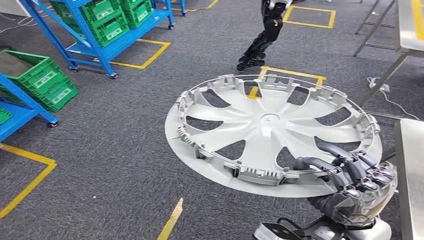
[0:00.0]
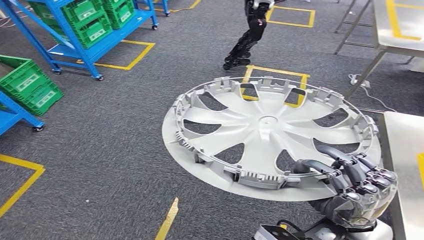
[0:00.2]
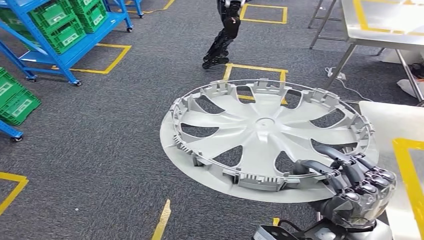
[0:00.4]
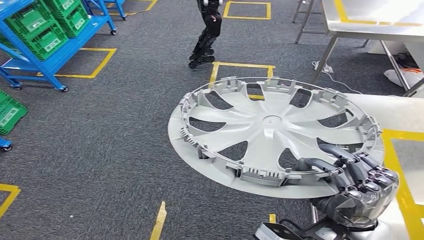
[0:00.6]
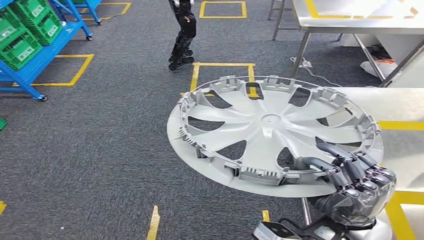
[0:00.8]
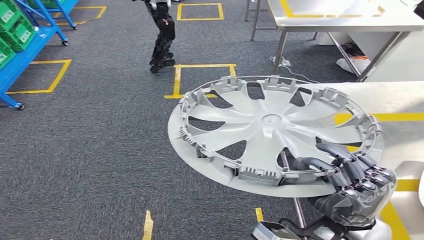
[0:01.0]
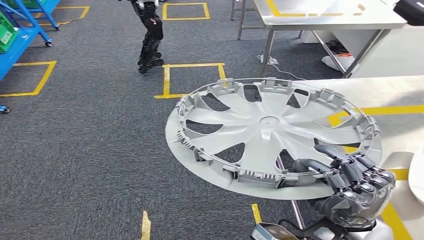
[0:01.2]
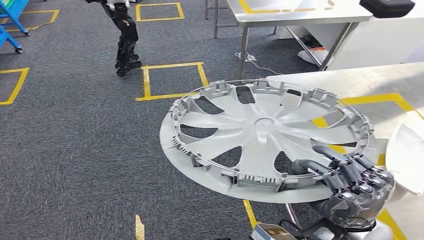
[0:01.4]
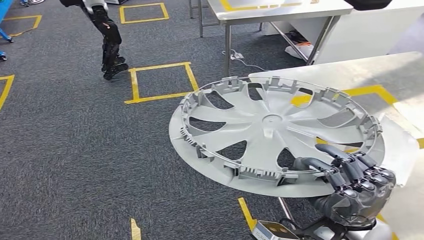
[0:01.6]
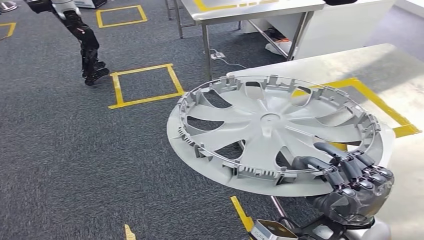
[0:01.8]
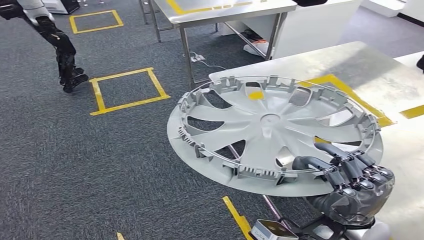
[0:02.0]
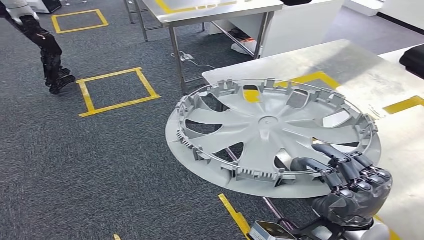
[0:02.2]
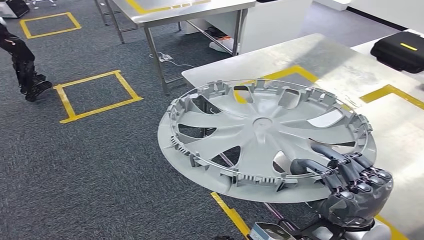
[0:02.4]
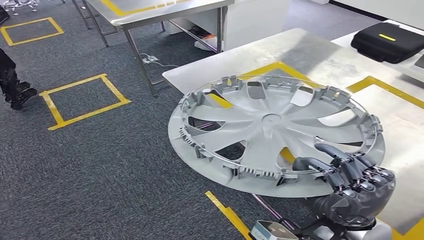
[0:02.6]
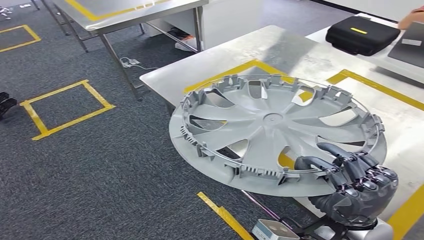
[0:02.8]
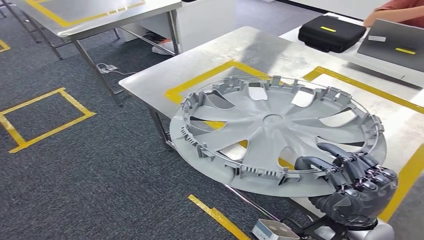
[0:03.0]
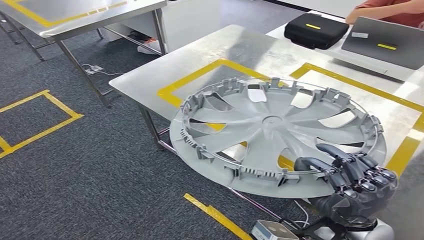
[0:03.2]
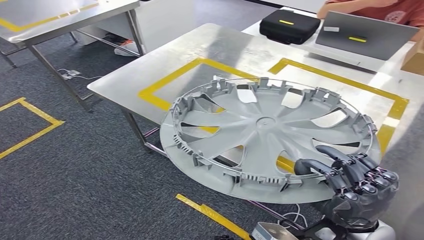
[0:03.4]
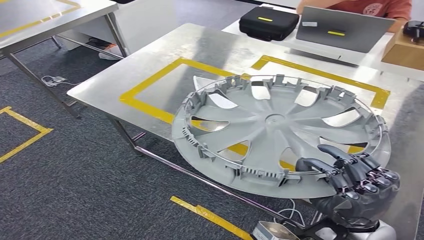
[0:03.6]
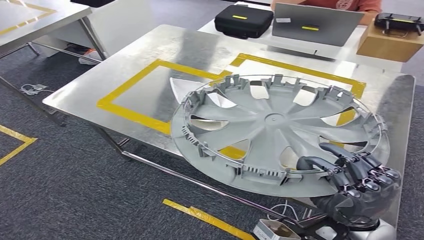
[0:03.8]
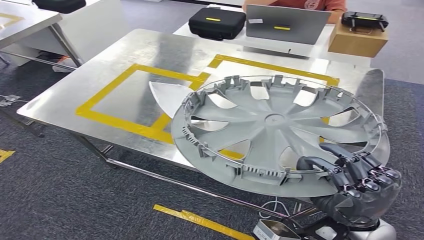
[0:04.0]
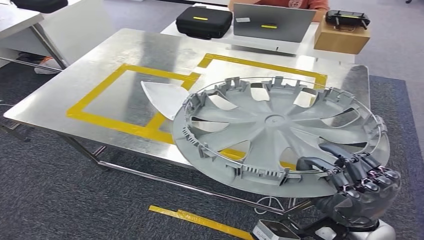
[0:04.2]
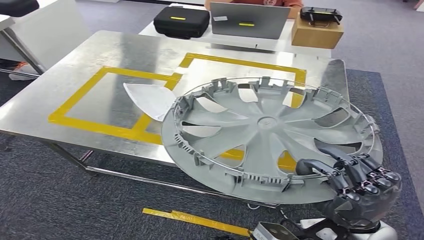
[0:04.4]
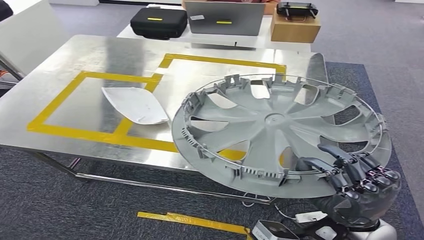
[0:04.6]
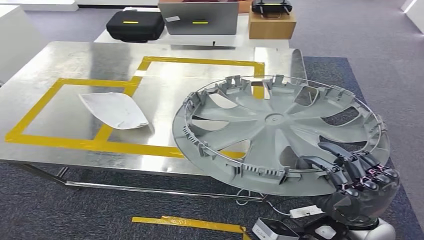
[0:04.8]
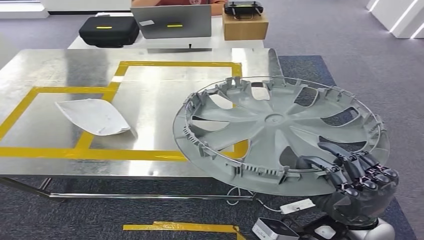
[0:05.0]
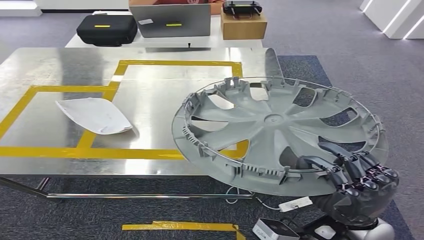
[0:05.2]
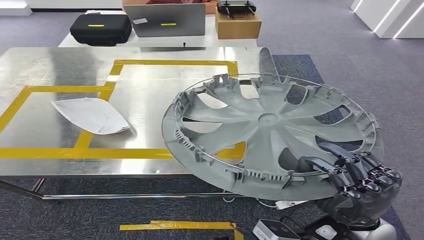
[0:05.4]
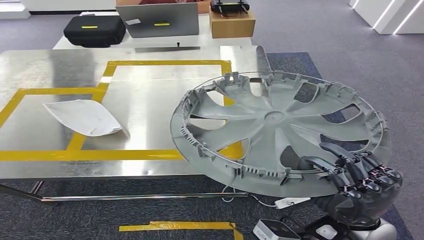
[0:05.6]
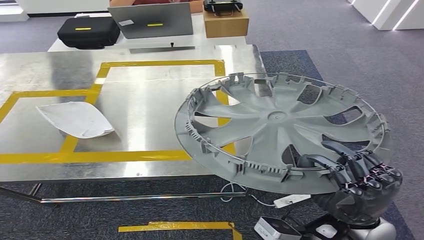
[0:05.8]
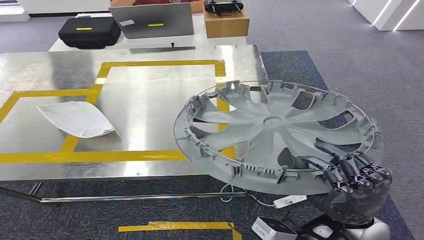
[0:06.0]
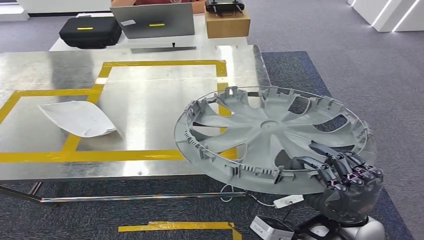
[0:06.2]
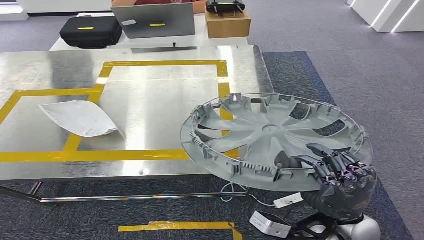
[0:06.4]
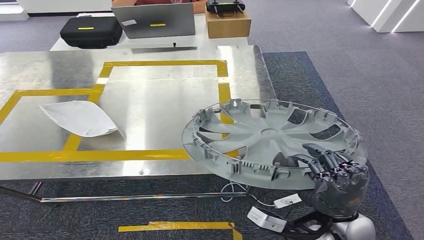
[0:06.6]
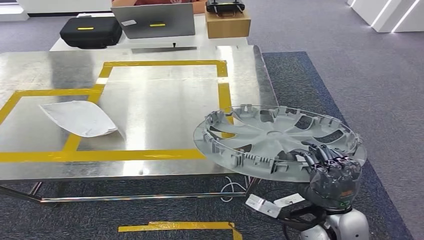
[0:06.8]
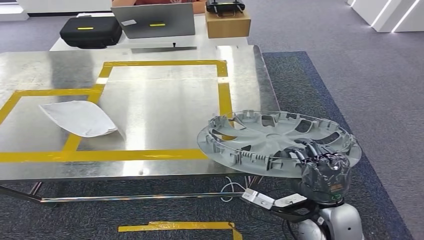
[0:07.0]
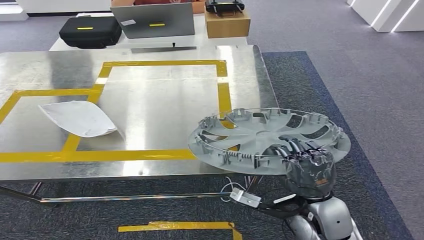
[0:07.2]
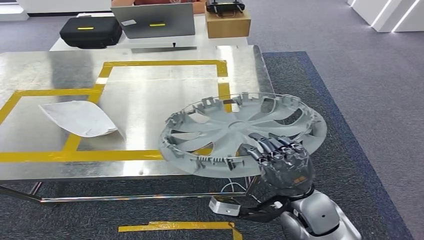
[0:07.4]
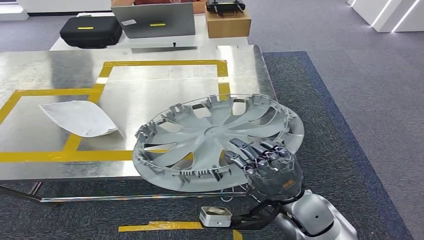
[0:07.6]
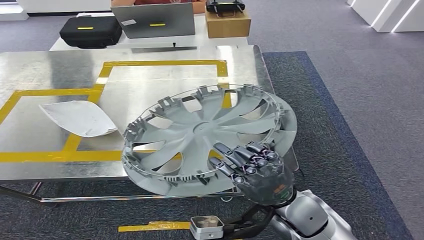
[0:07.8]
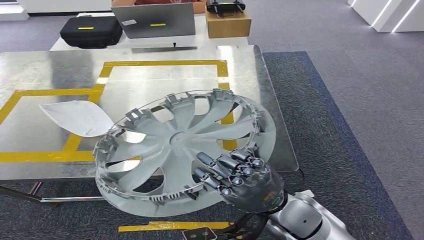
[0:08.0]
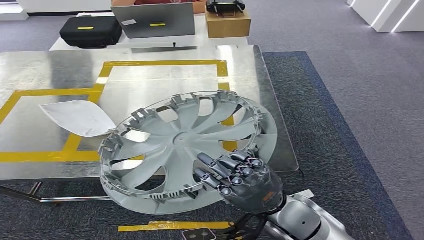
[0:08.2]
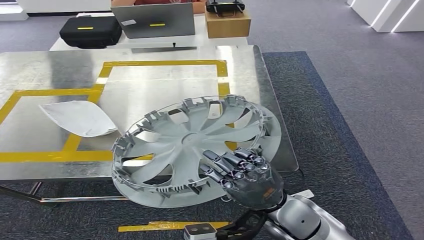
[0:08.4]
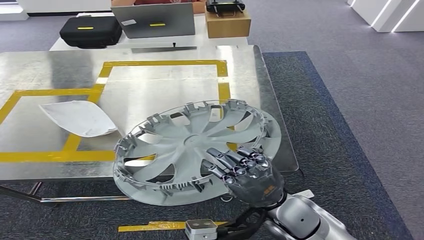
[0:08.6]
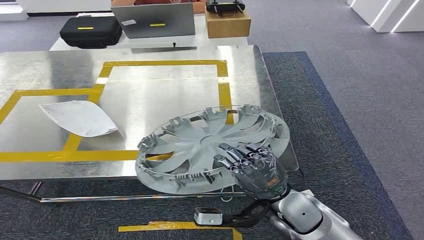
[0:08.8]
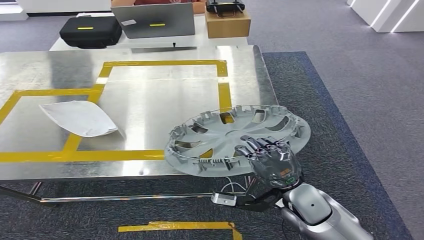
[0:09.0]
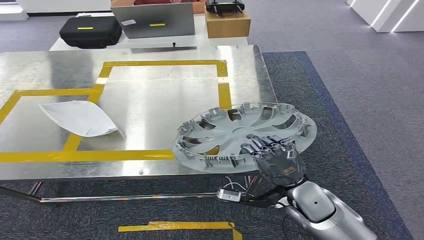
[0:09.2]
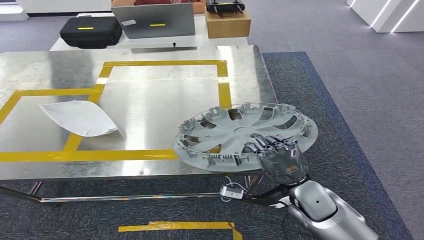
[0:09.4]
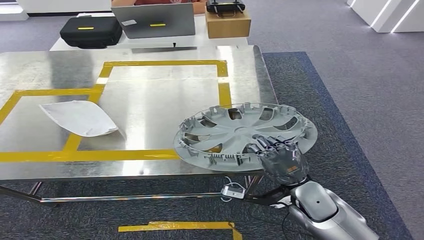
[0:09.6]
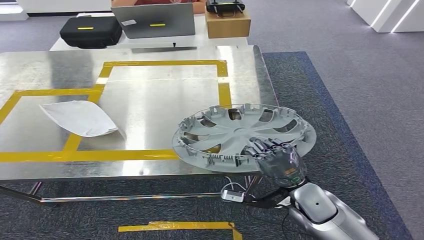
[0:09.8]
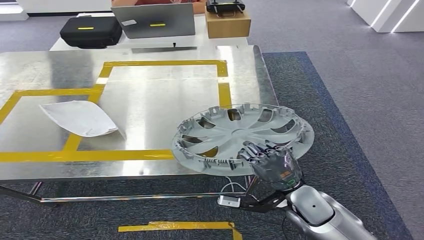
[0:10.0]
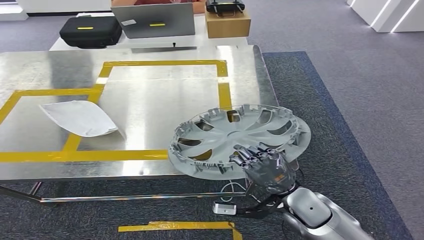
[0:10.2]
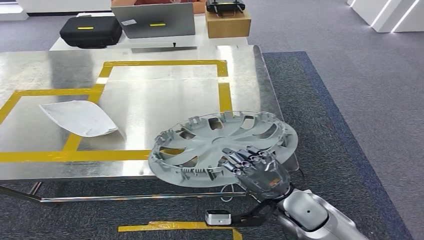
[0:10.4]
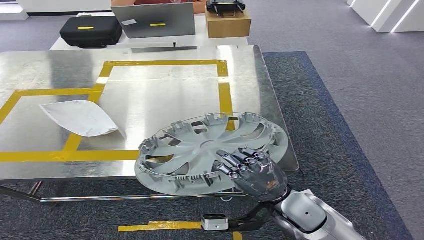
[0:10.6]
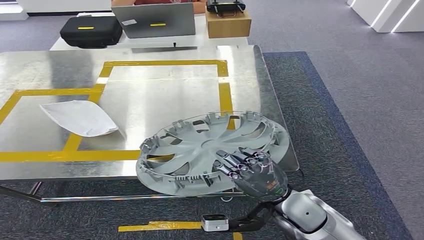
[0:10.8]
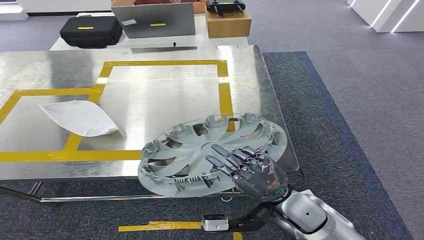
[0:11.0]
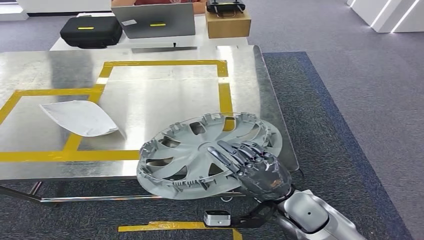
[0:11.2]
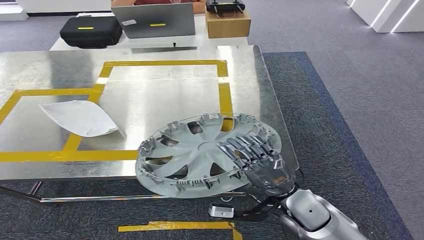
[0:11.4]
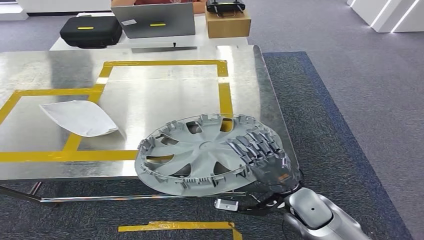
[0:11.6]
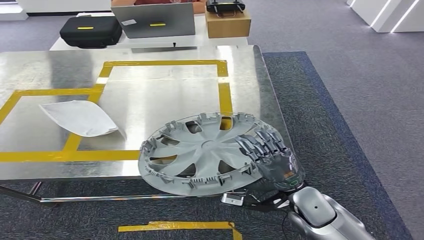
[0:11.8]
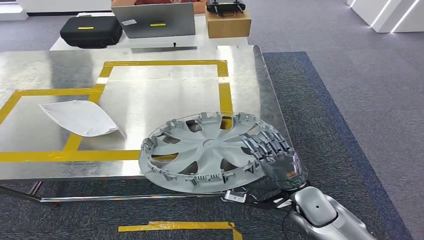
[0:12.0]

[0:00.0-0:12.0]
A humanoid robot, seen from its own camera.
Step, 0:00.0 to 0:02.2: Move the small parts to the workbench.
0:07.6 to 0:09.0: The right hand changes place by roughly 5 cm.
0:09.0 to 0:10.4: There are only small adjustments of the hands.
0:10.4 to 0:12.0: The right hand changes place by approximately 5 cm.

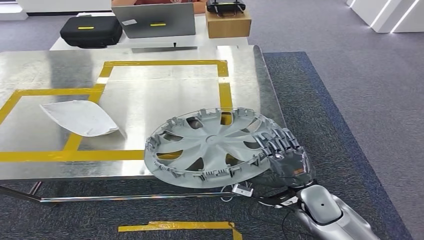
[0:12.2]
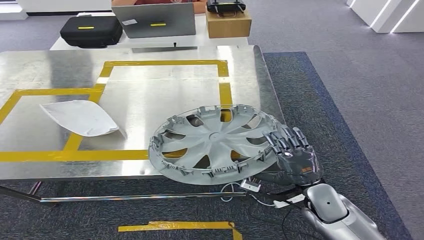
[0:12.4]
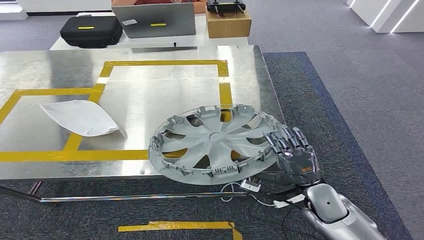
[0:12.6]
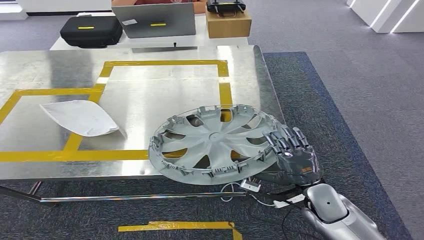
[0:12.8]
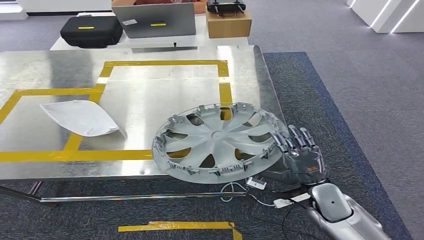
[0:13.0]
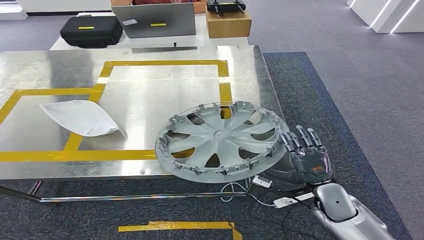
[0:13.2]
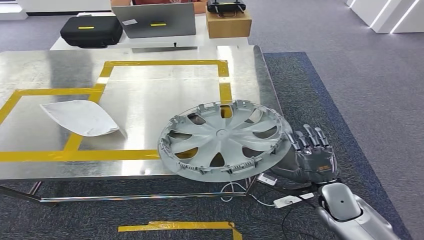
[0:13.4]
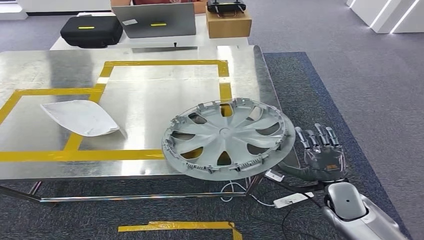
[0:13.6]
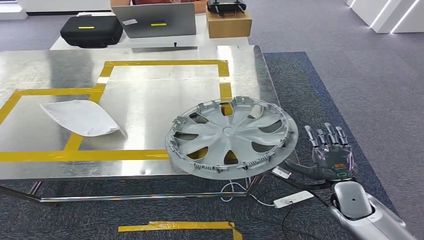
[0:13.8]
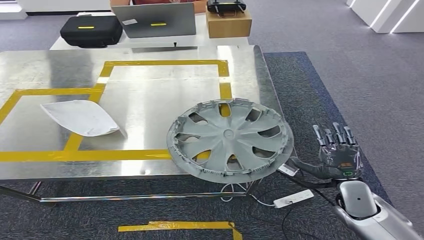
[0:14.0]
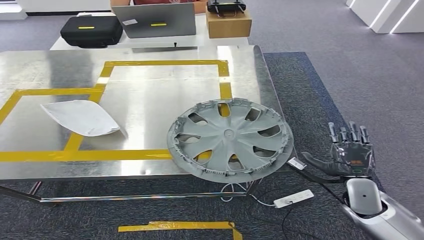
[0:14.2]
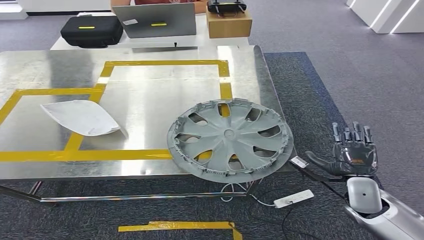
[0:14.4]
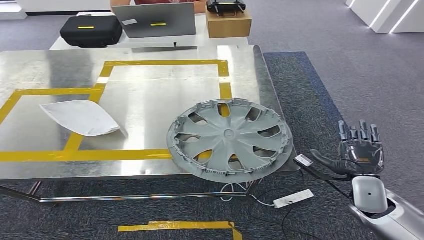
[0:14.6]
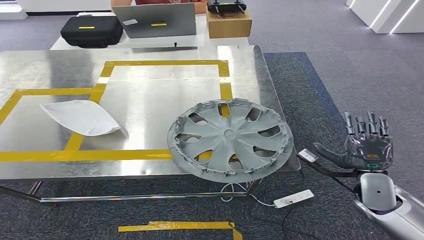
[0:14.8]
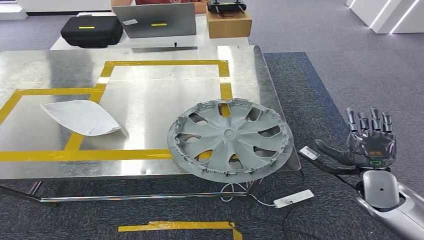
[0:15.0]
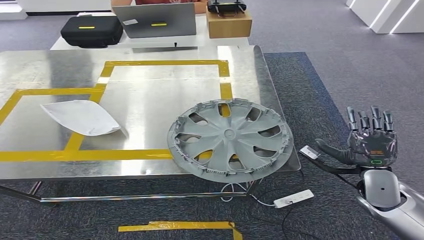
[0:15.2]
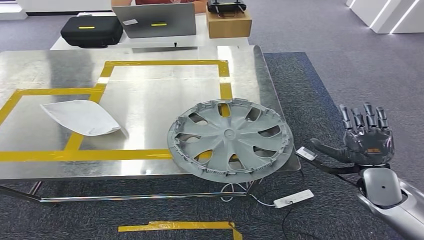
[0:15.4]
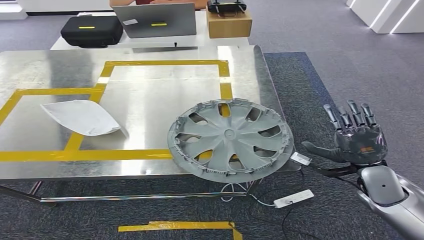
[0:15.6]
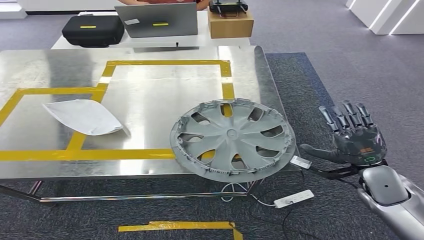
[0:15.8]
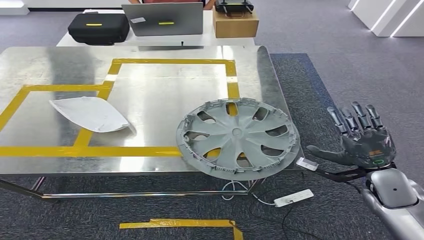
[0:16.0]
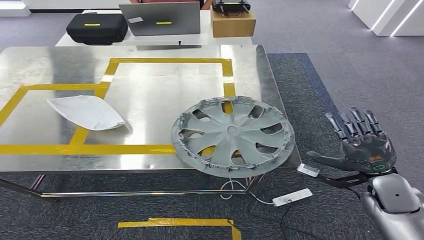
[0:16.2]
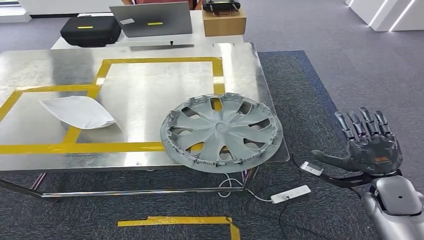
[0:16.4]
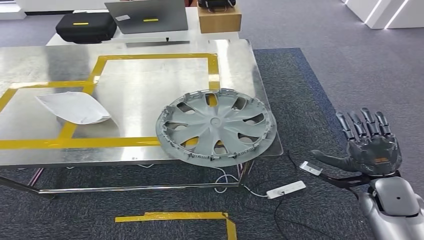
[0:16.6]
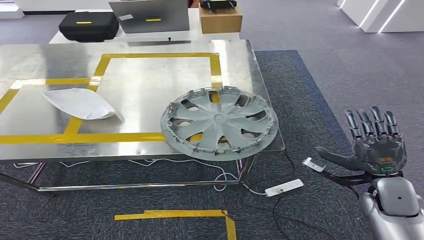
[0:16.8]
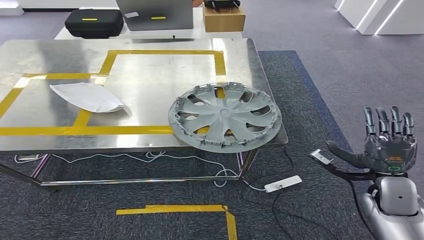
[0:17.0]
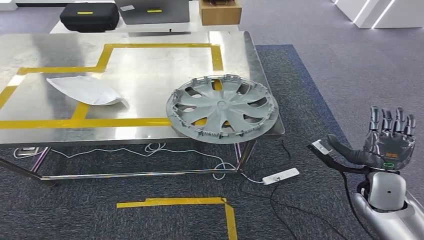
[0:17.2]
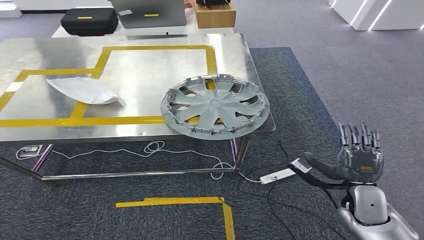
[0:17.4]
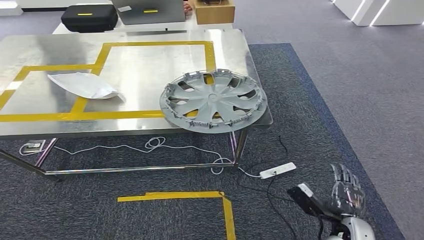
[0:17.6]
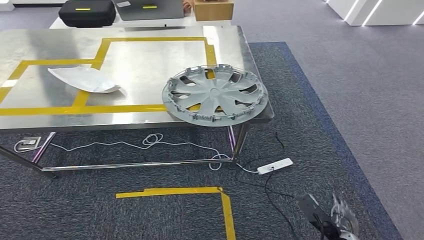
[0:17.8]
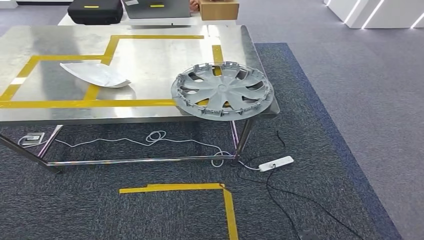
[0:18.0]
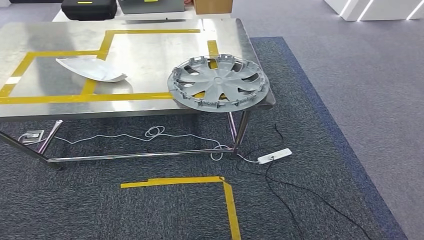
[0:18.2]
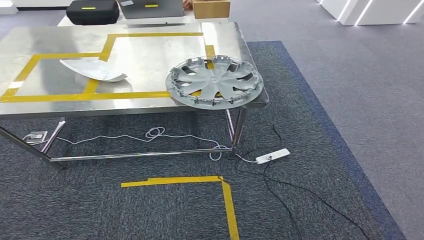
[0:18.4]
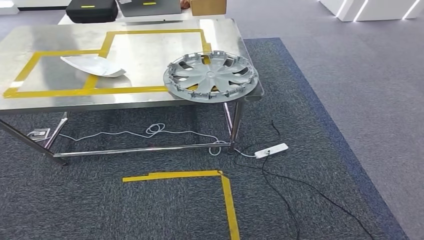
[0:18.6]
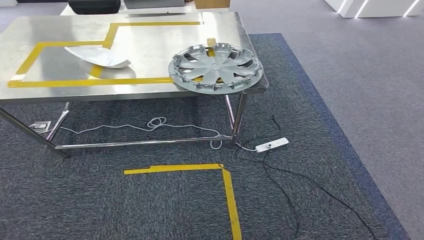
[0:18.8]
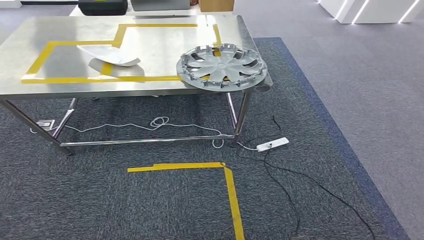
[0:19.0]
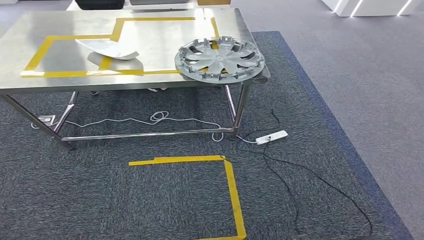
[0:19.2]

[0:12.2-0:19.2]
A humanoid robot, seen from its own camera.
Step, 0:12.2 to 0:18.8: Insert the small parts into the corresponding slots on the workbench.
0:12.2 to 0:13.6: The right hand goes roughly 5 cm to the right.
0:13.6 to 0:15.0: The right hand moves to the right, approximately 5 cm.
